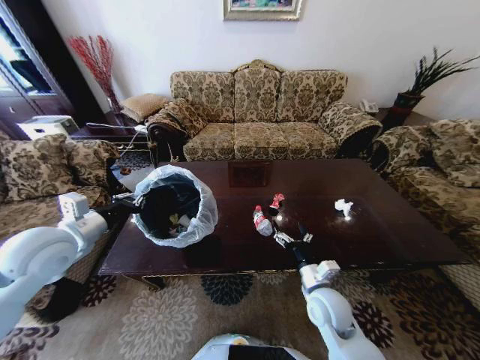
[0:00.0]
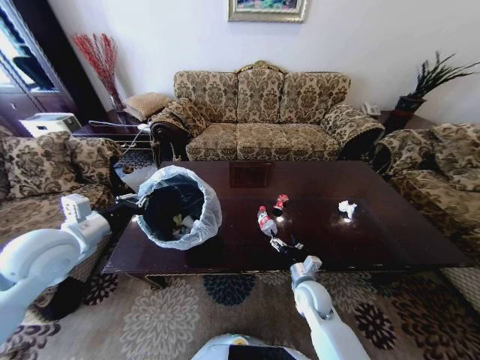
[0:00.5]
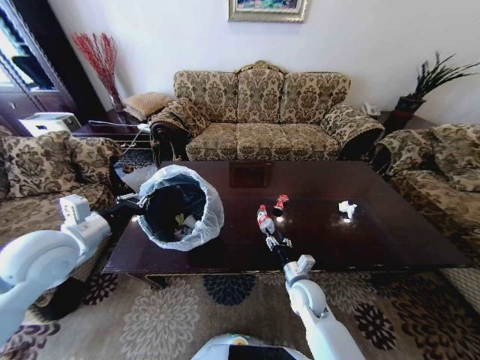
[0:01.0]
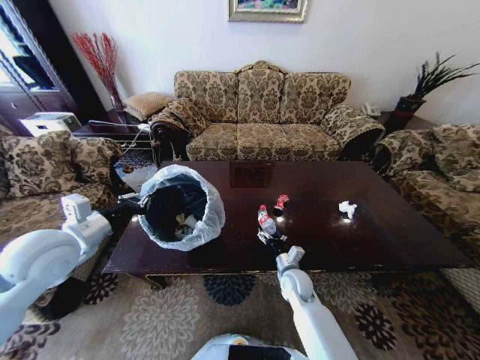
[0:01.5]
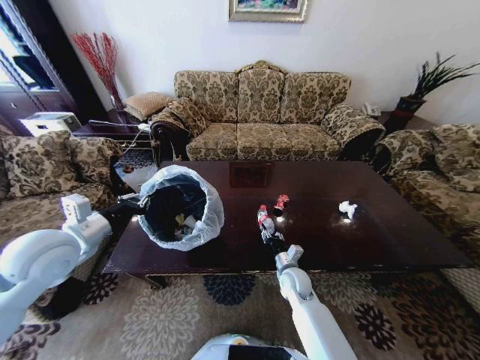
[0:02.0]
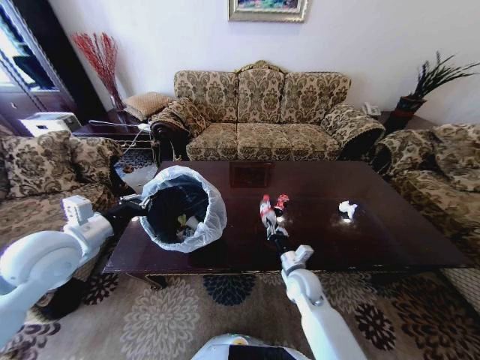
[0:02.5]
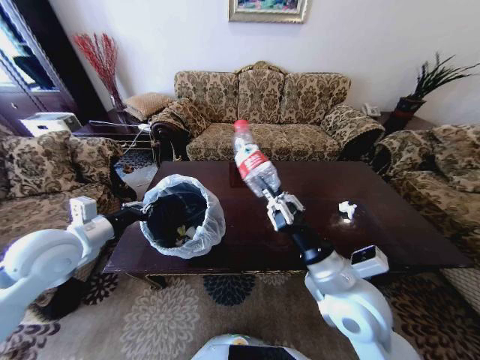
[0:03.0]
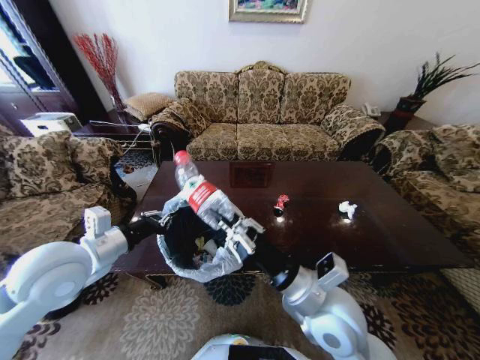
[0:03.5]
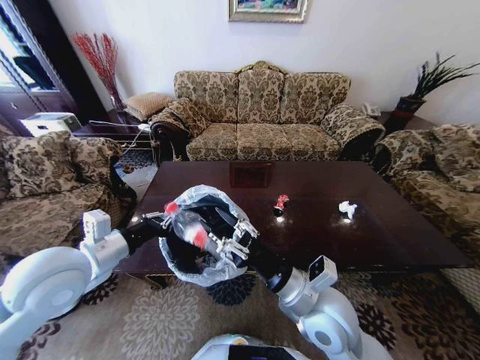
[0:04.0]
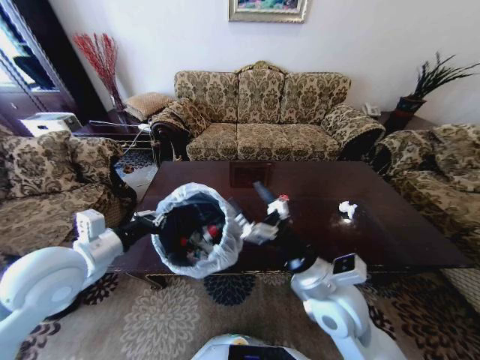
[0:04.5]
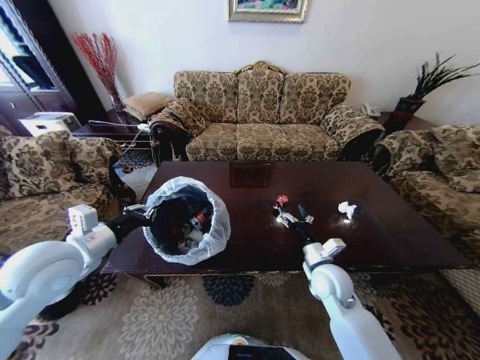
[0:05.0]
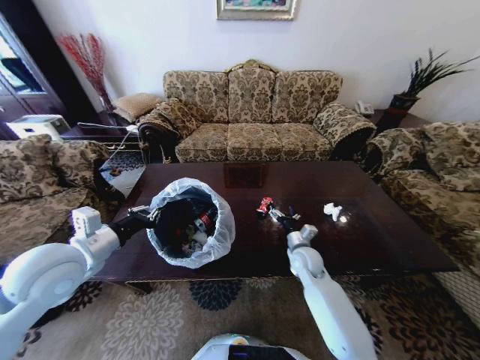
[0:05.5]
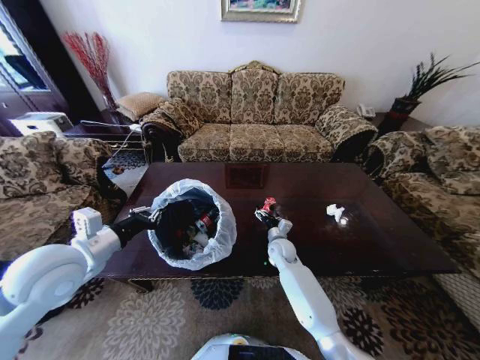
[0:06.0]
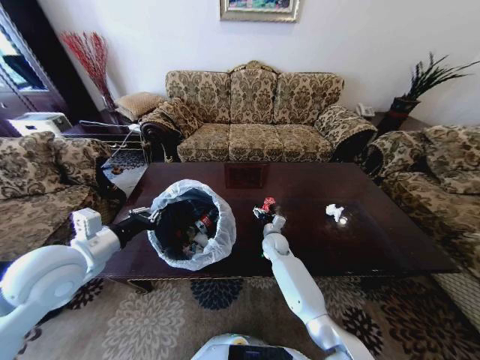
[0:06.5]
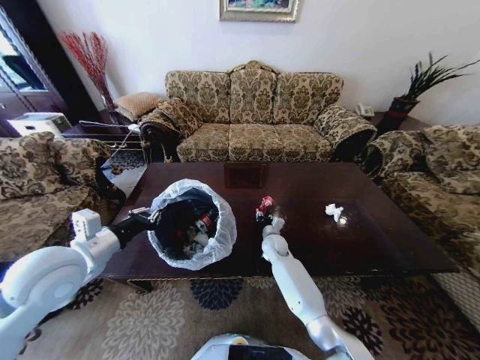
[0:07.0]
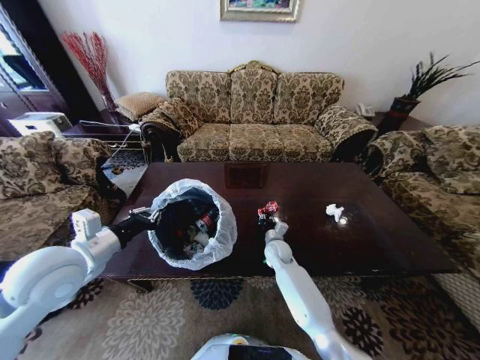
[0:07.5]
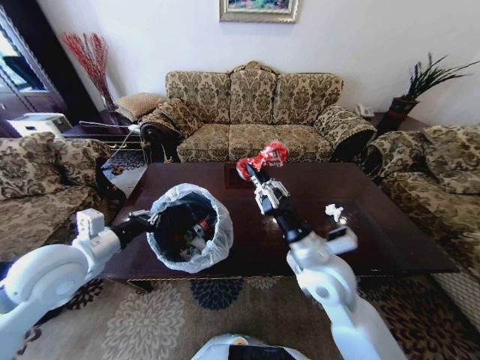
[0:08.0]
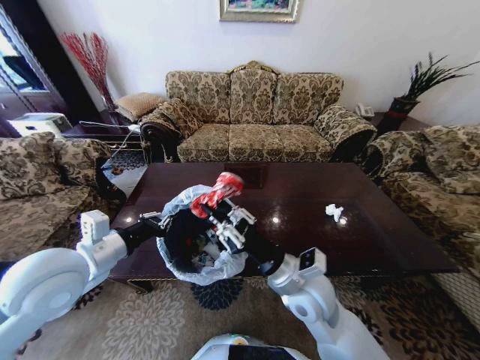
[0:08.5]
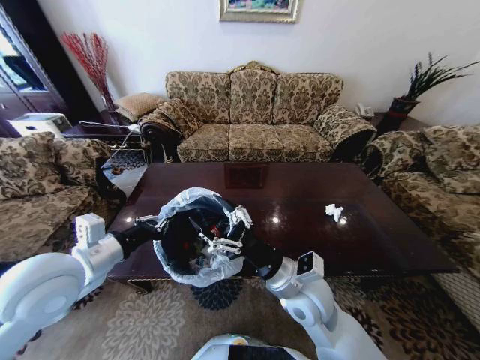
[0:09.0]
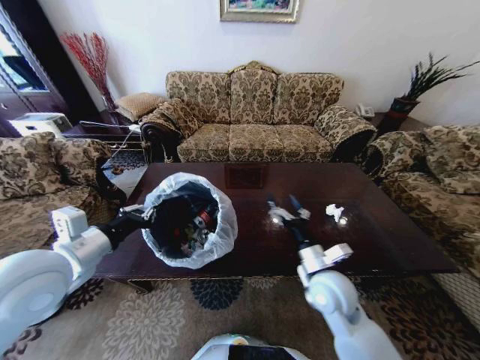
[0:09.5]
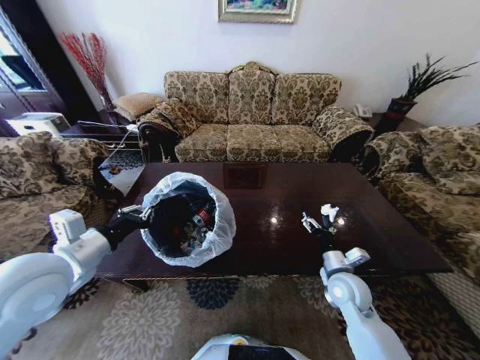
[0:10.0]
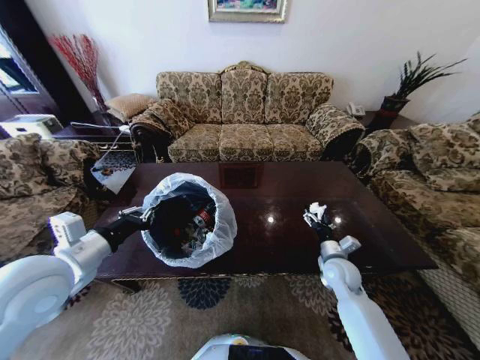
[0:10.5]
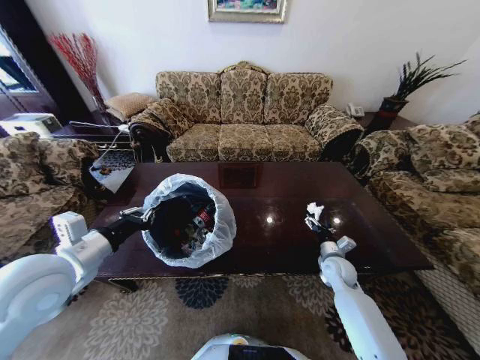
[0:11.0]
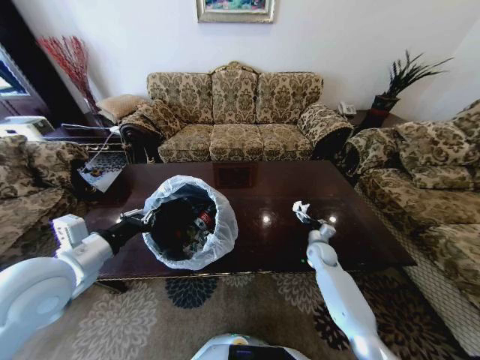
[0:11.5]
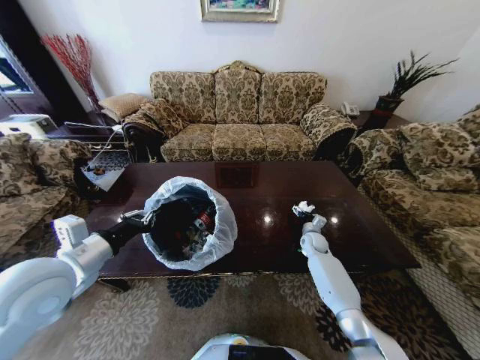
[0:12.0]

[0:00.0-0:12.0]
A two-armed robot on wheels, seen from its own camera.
Task of the whole recording: Move to the front of the table and place the trash on the table into the trash bin.
0:00.0 to 0:02.0: The right gripper shifts some 10 cm forward and downward, and closes.
0:02.0 to 0:04.0: The left gripper travels to the right by roughly 5 cm. The right gripper heads upward and backward, covering roughly 25 cm.
0:04.0 to 0:06.0: The right gripper travels forward and downward by approximately 30 cm, and opens up.
0:06.0 to 0:08.0: The right gripper is displaced upward and backward by some 25 cm, and closes its fingers.
0:08.0 to 0:10.0: The right gripper moves downward and to the right, roughly 15 cm, and opens.
0:10.0 to 0:12.0: The right gripper travels forward and downward by roughly 25 cm.

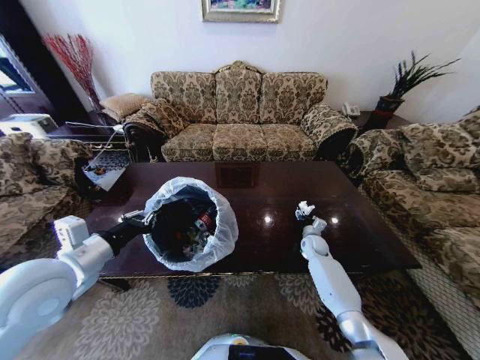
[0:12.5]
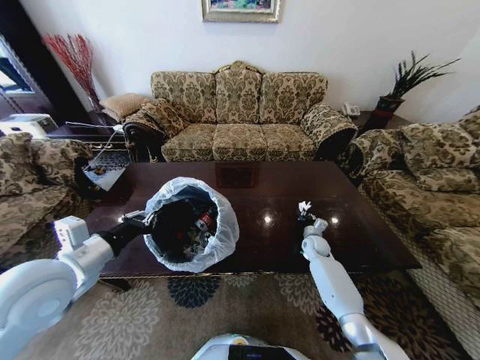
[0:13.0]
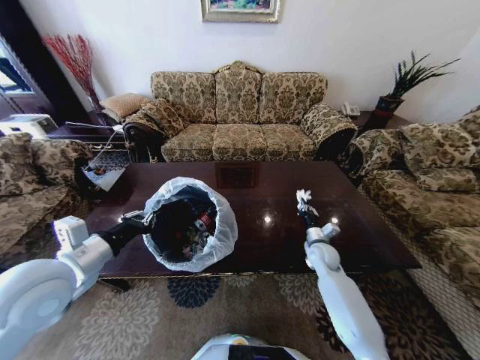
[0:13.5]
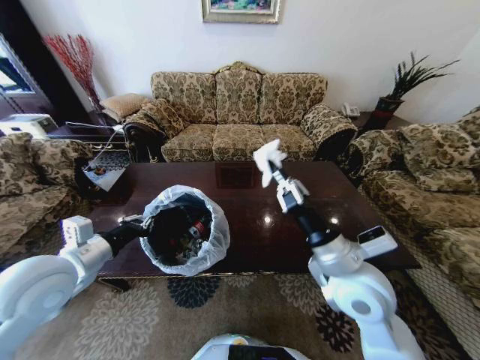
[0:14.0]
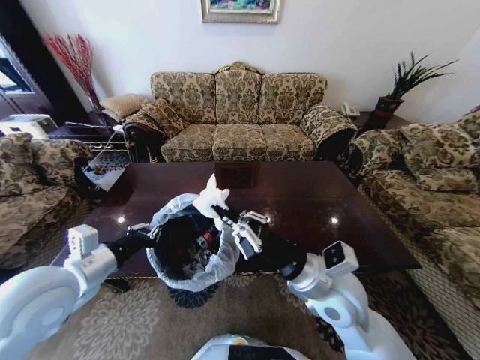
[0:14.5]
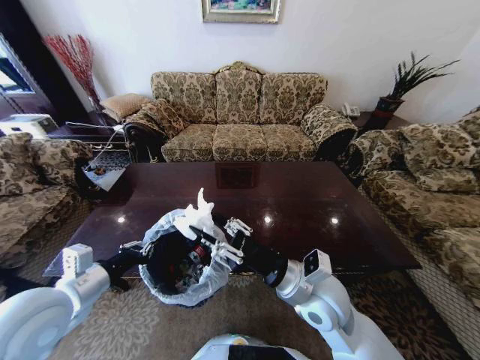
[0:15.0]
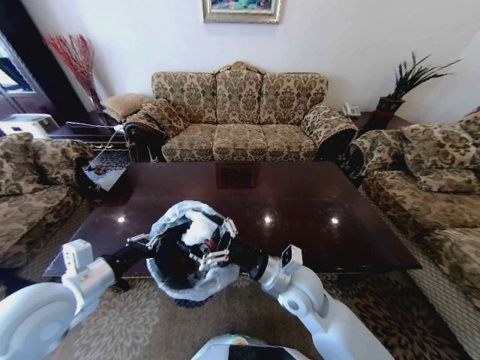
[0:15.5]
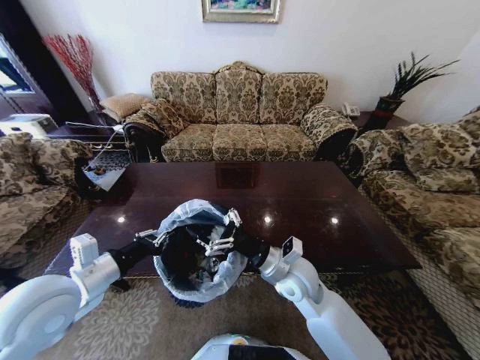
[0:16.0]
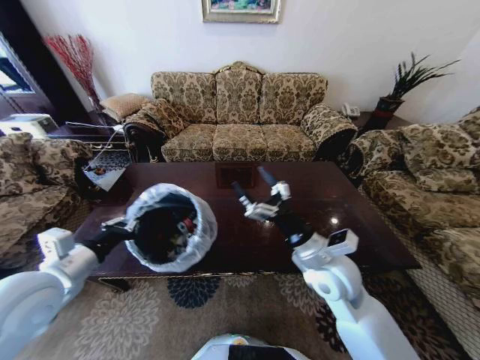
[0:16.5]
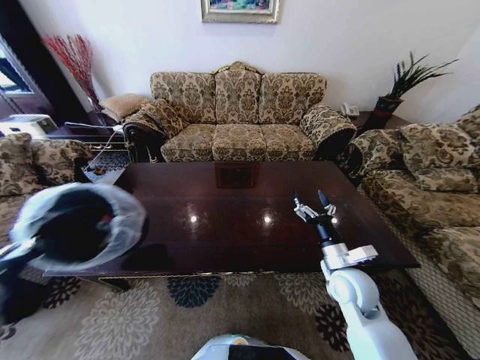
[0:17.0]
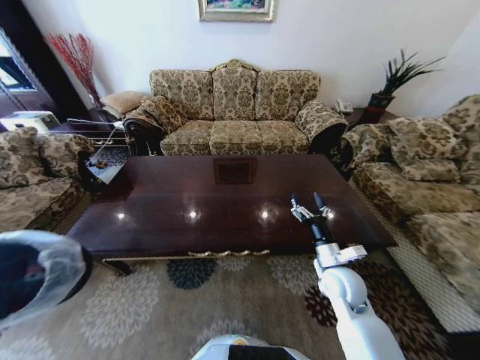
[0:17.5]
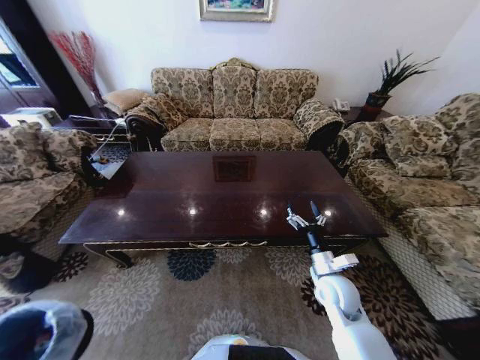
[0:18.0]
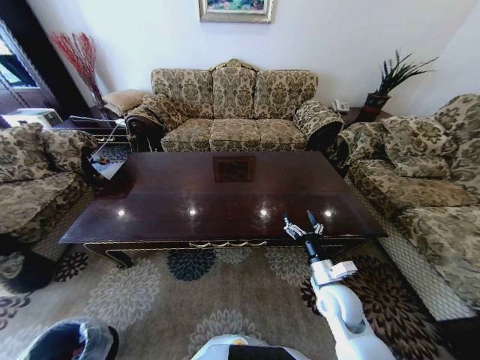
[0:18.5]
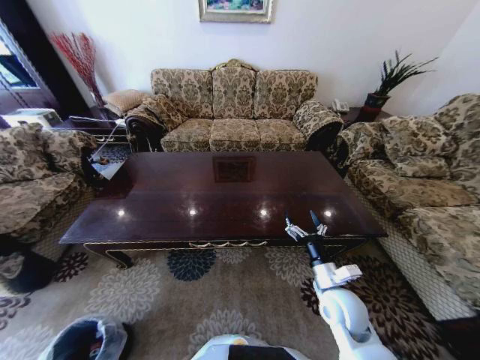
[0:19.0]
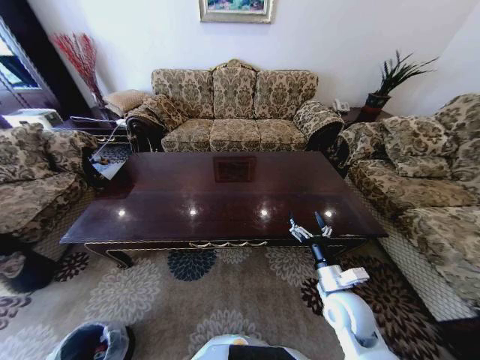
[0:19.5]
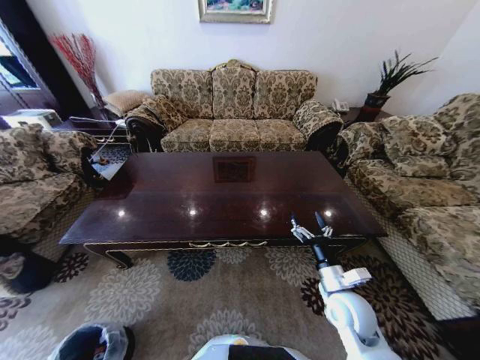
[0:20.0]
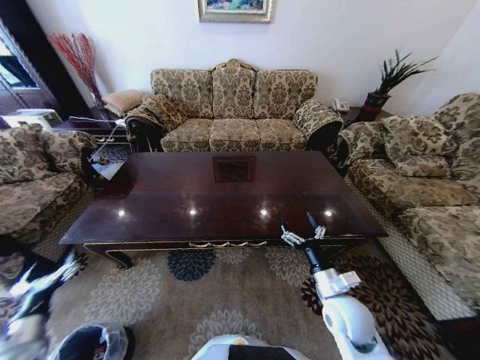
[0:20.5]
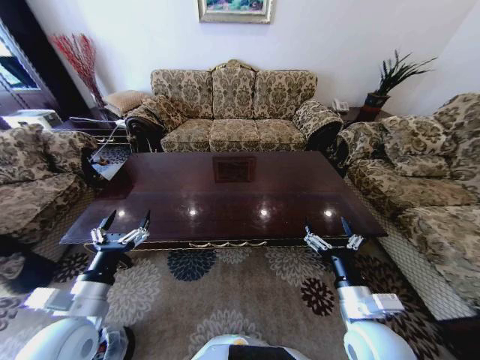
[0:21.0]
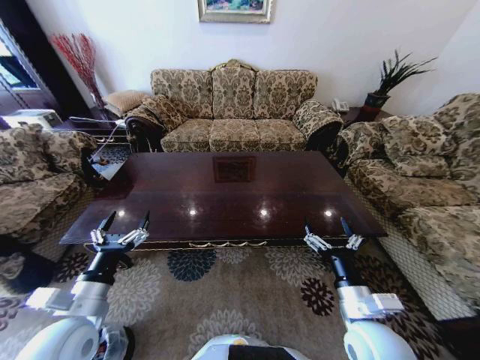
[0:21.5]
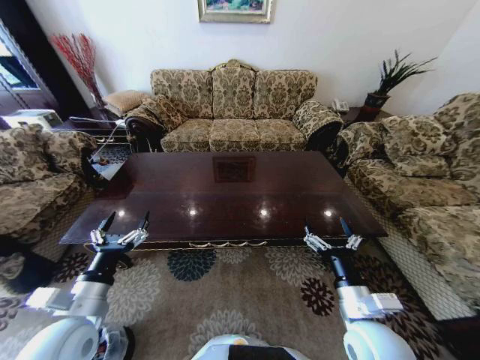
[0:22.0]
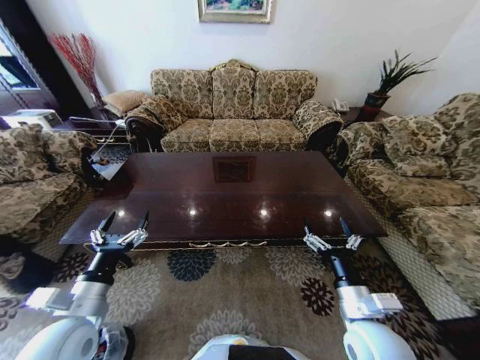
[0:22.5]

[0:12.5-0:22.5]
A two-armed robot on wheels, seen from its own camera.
Task of the whole recording: Move to the front of the table and place the trash on the table into the trash bin.
0:12.5 to 0:14.5: The right gripper travels upward, backward and to the left by about 40 cm, and closes its fingers.
0:14.5 to 0:16.5: The right gripper opens.
0:16.5 to 0:18.5: The left gripper moves downward, to the left and backward, roughly 50 cm; the right gripper travels downward and to the right by roughly 15 cm.
0:18.5 to 0:20.5: The left gripper shifts about 25 cm upward, forward and to the right, and opens up.
0:20.5 to 0:22.5: The left gripper travels to the right and upward by roughly 20 cm; the right gripper shifts about 10 cm backward and upward.

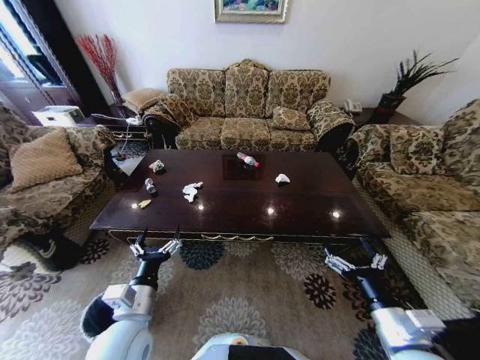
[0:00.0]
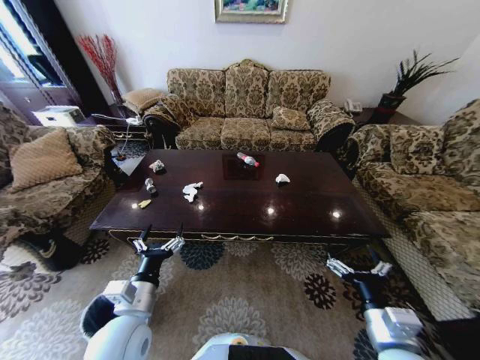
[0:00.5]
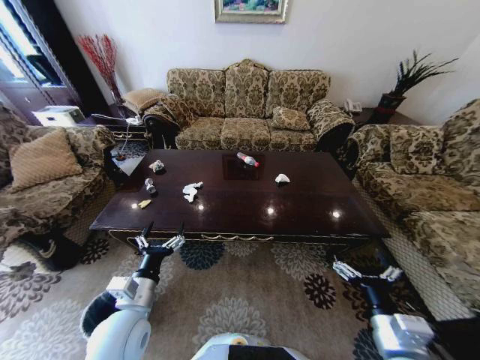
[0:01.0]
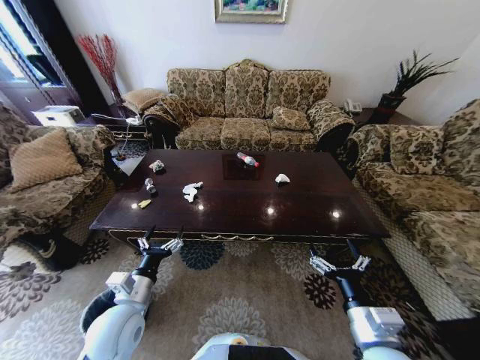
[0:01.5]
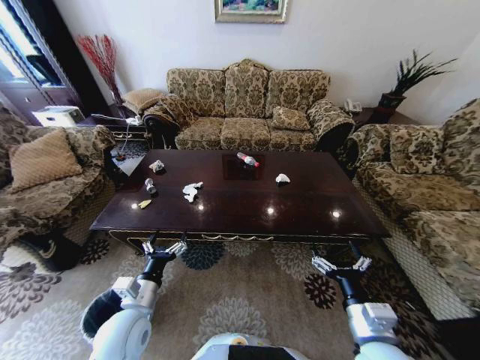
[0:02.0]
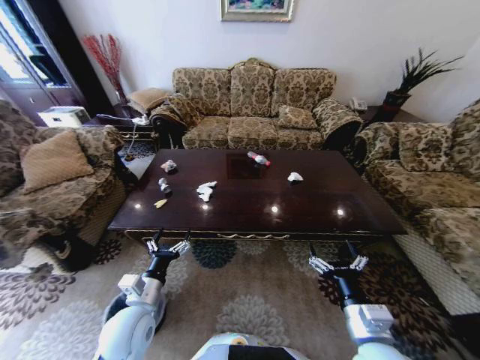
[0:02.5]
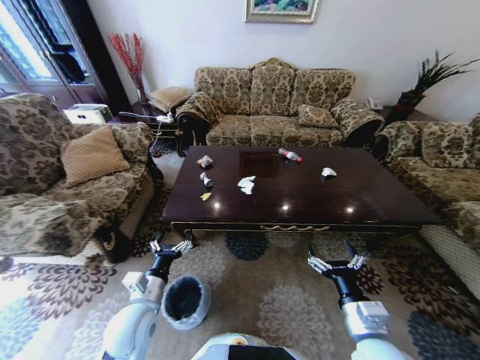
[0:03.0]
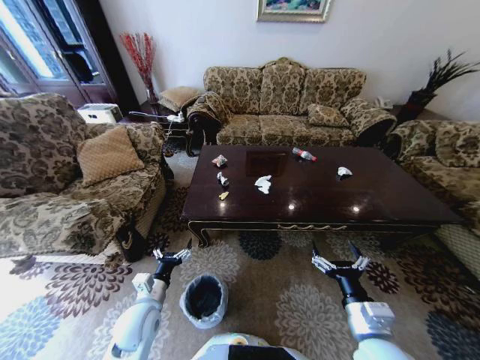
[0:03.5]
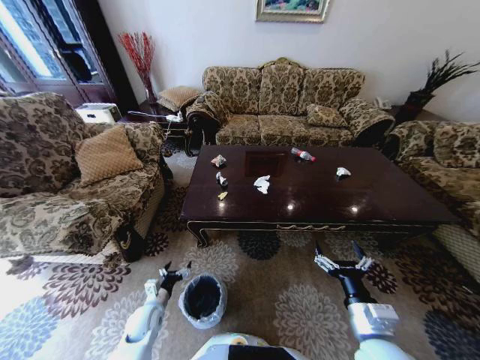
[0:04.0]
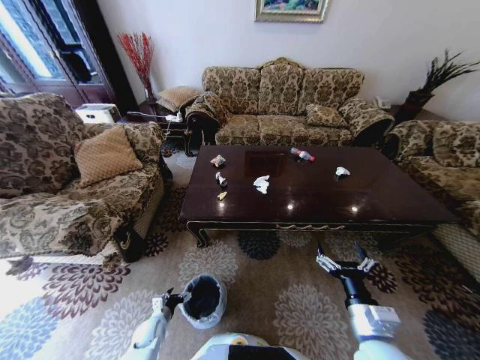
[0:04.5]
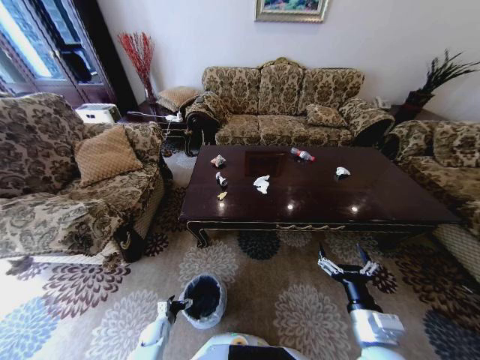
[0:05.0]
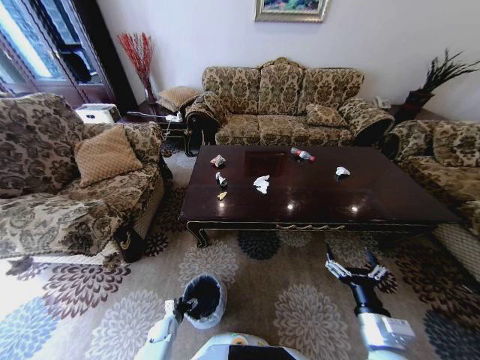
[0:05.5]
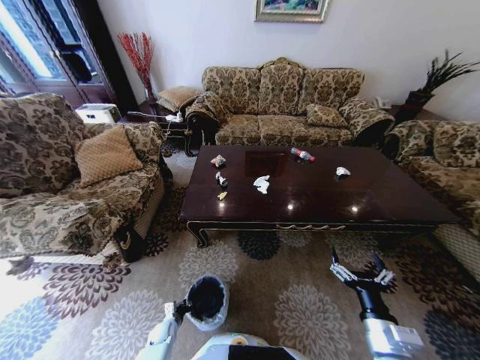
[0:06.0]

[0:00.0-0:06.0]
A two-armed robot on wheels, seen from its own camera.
Task of the whole recording: Move to the front of the table and place the trash on the table into the trash bin.
0:02.0 to 0:04.0: The left gripper heads downward, covering approximately 20 cm.
0:04.0 to 0:06.0: The left gripper shifts about 15 cm downward, and closes up.
